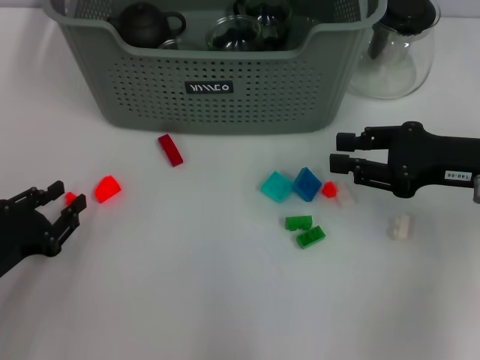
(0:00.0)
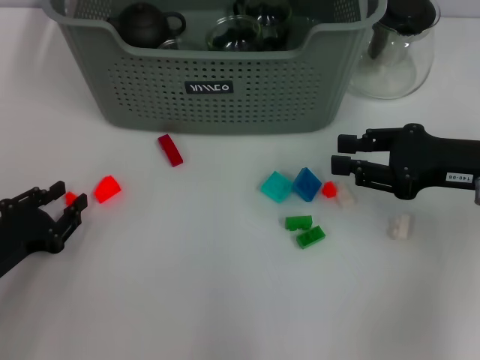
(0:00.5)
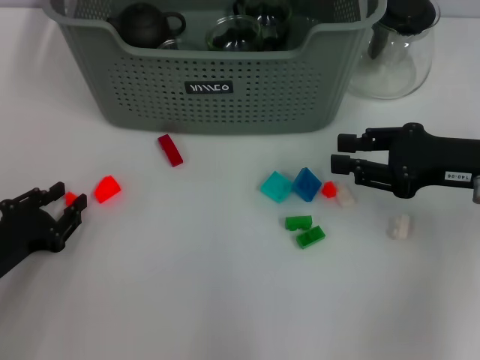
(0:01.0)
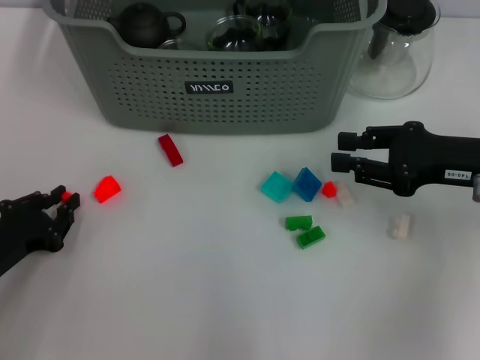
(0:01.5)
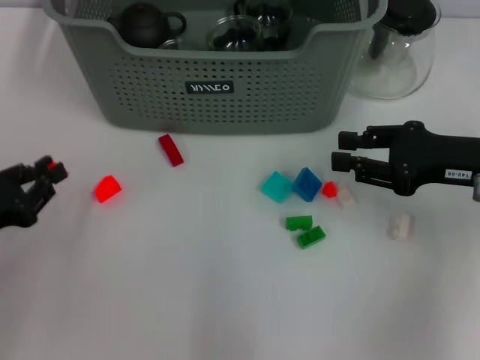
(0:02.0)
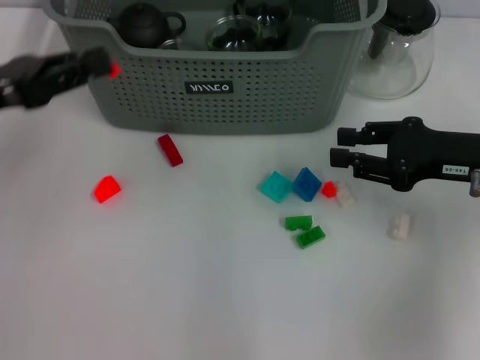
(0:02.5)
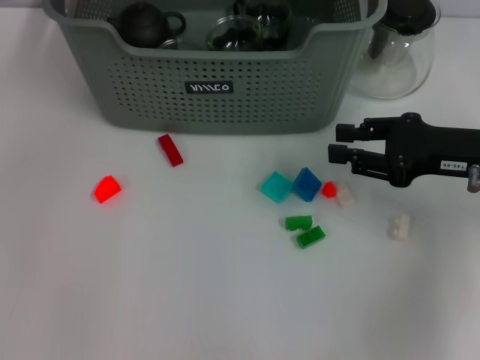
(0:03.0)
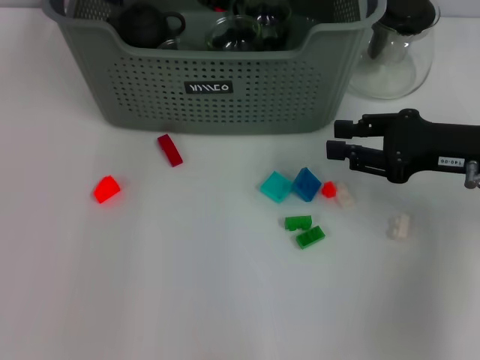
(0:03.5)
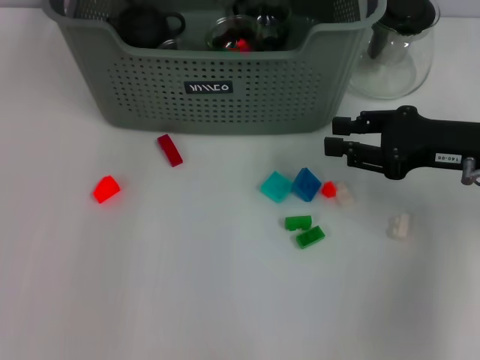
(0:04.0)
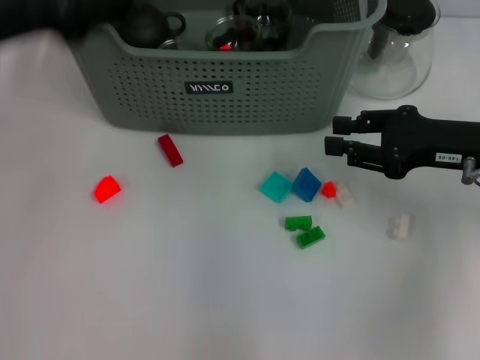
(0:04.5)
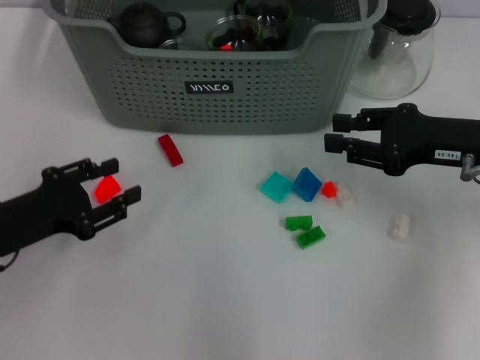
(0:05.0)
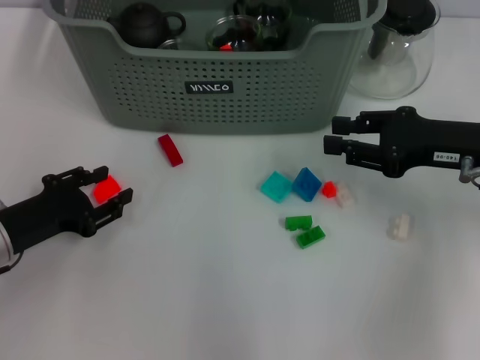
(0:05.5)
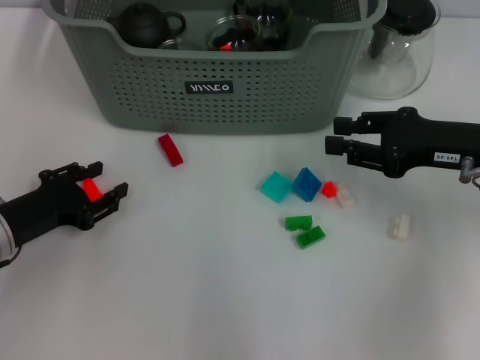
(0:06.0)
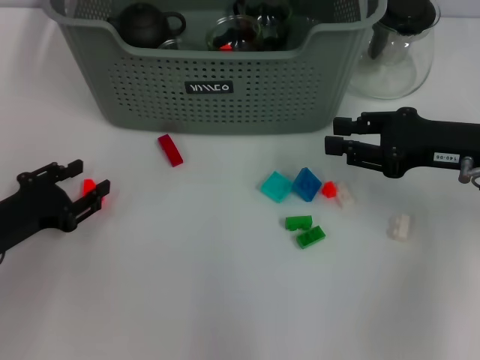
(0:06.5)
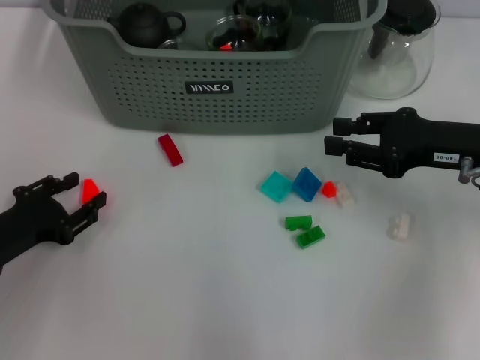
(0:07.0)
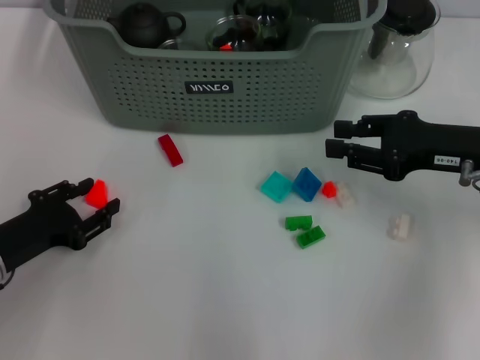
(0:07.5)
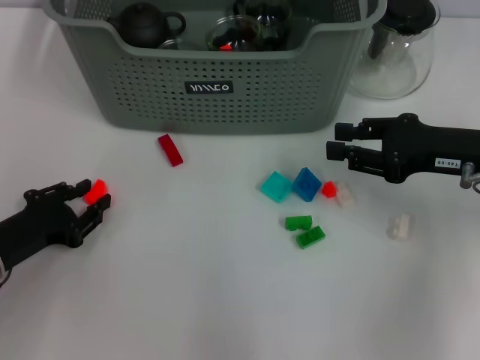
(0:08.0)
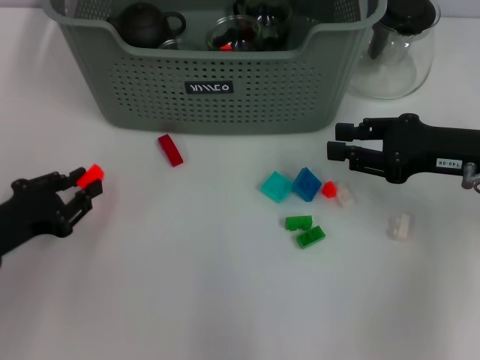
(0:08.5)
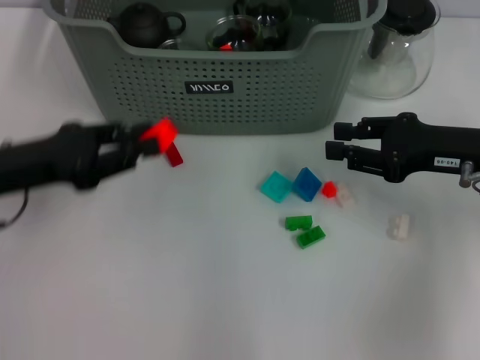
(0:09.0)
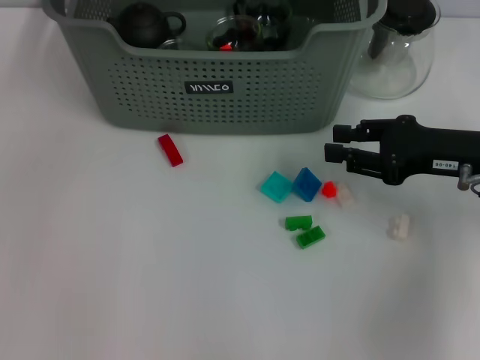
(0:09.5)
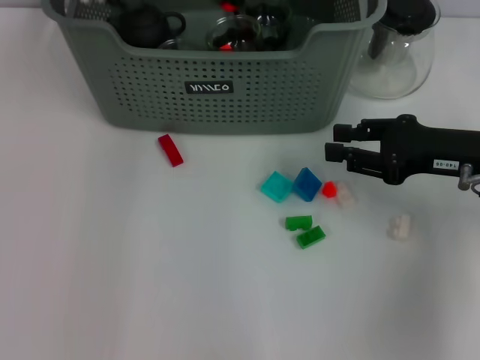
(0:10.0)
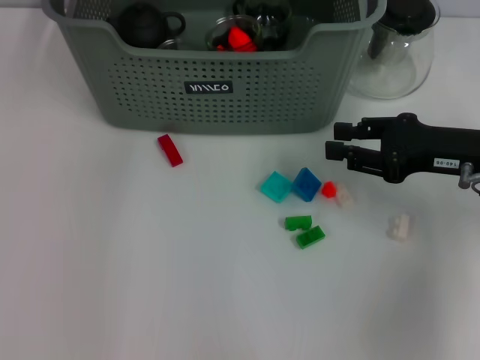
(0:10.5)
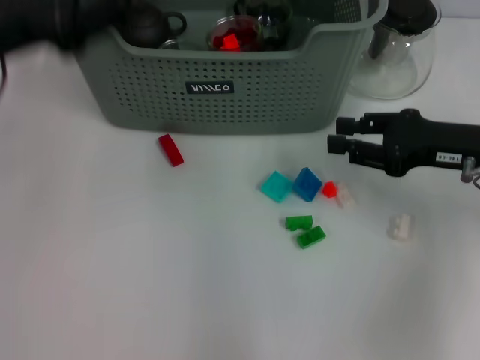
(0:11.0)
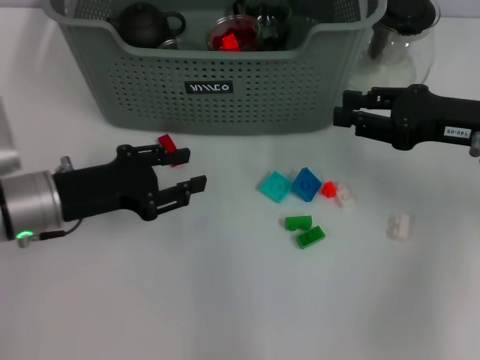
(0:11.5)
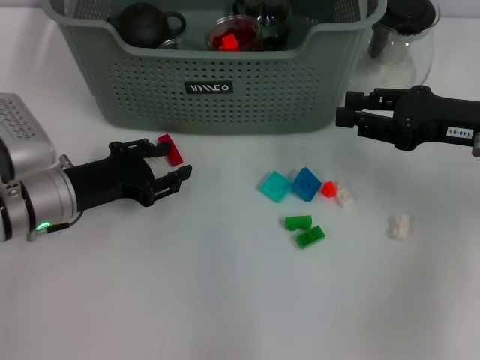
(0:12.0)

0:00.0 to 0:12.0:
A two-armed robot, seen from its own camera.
Task of the whole recording: pick up the teacup on the table and place it into the storage bin, pick up the block on the table and place it into the storage bin.
Step, 0:02.0 to 0:03.5: Place the orange block in the storage box with left gripper.
Step, 0:04.0 to 0:08.0: Grasp the orange block with left gripper.
Step, 0:08.5 to 0:10.0: Place the orange block in the storage box with left gripper.
0:00.0 to 0:02.0: The grippers move only a little.
0:02.0 to 0:04.0: The left gripper shifts roughly 40 cm forward, to the right and upward, and opens its fingers.
0:04.0 to 0:06.0: The left gripper moves downward, backward and to the left, about 35 cm.
0:06.0 to 0:08.0: There are only small adjustments of the grippers.
0:08.0 to 0:10.0: The left gripper goes roughly 35 cm forward, upward and to the right.
0:10.0 to 0:12.0: The left gripper moves downward, backward and to the left, approximately 25 cm.

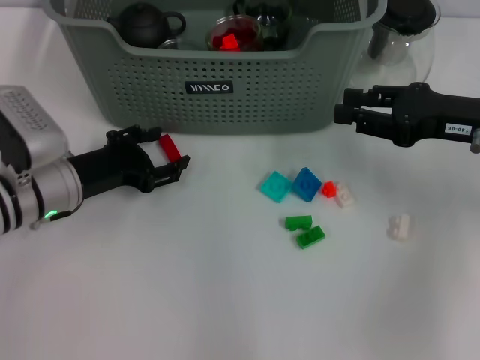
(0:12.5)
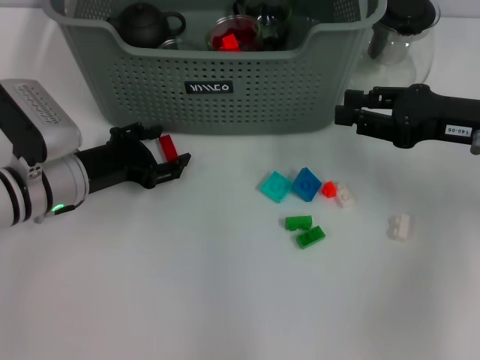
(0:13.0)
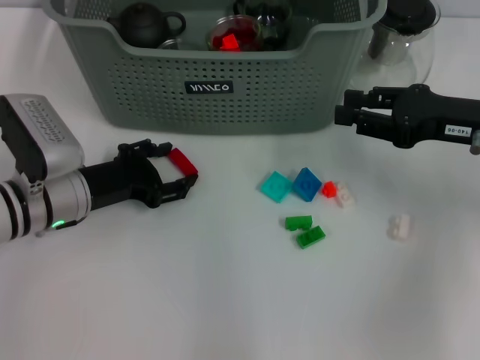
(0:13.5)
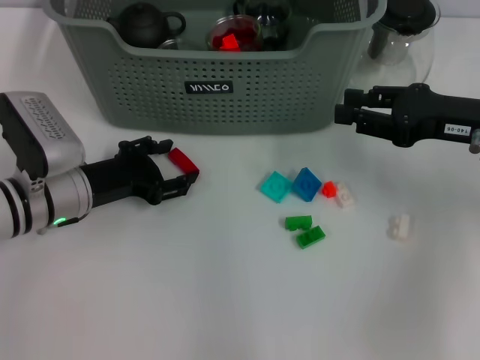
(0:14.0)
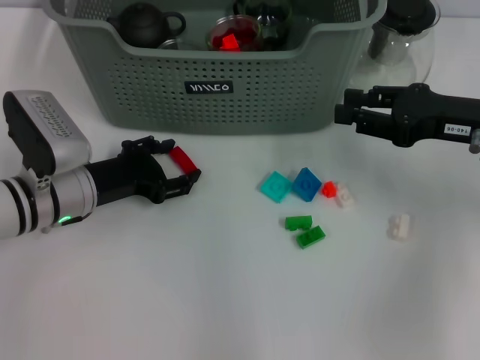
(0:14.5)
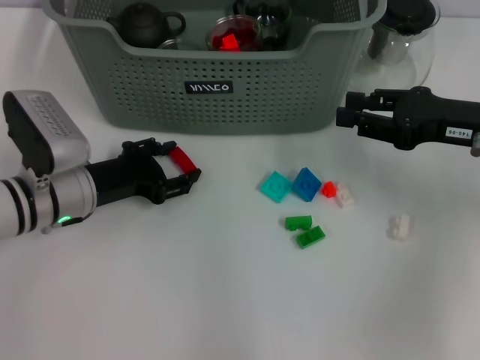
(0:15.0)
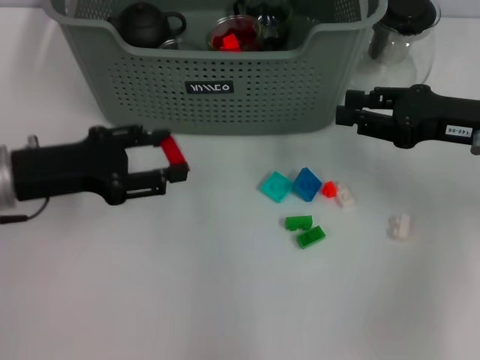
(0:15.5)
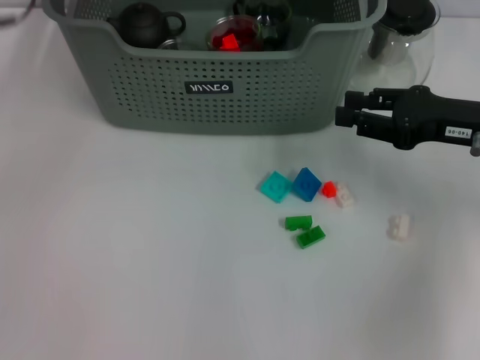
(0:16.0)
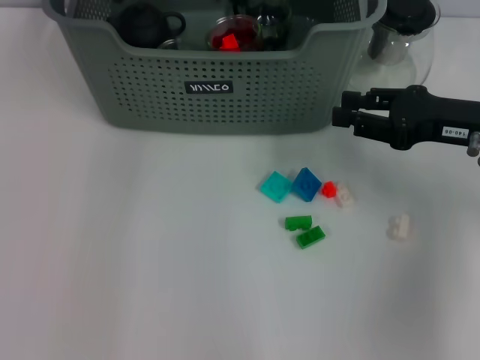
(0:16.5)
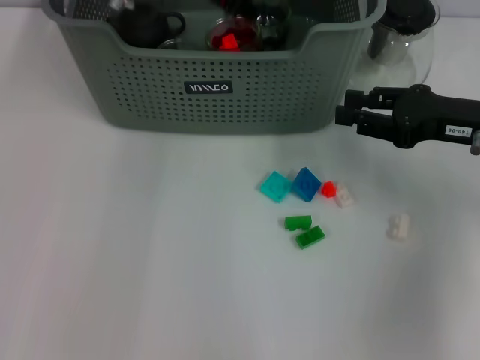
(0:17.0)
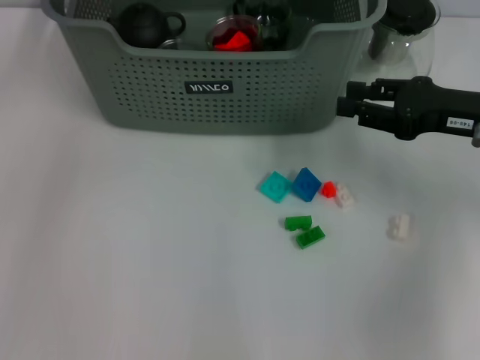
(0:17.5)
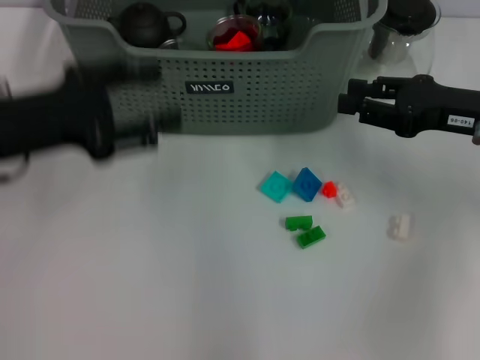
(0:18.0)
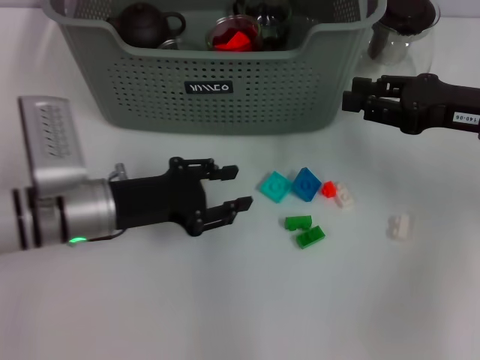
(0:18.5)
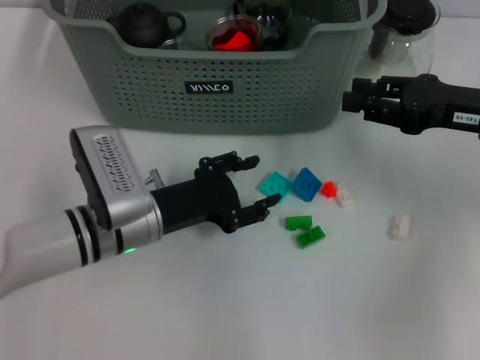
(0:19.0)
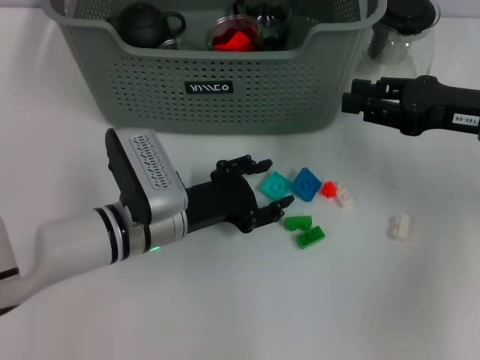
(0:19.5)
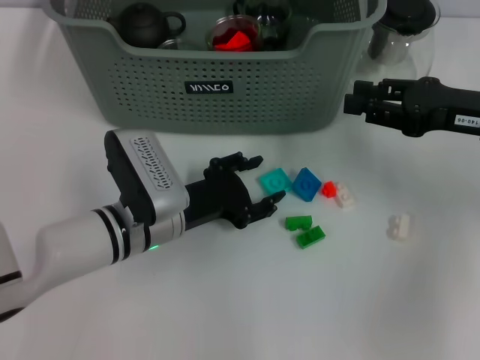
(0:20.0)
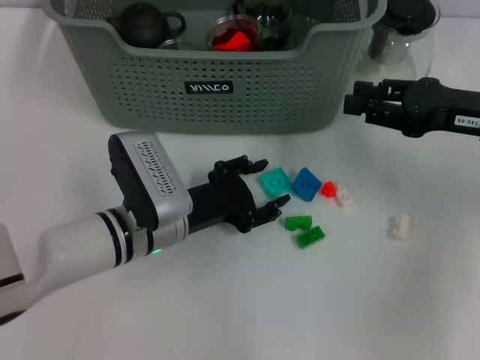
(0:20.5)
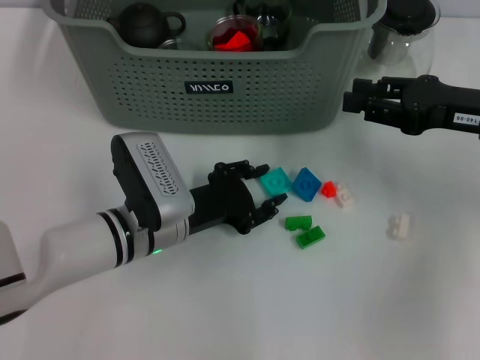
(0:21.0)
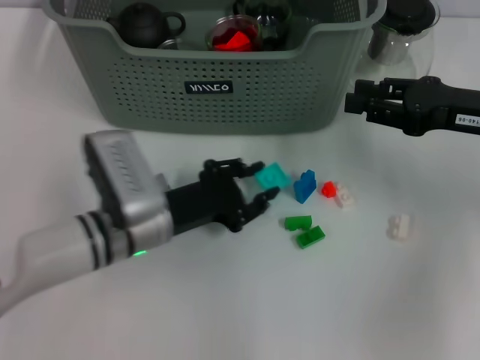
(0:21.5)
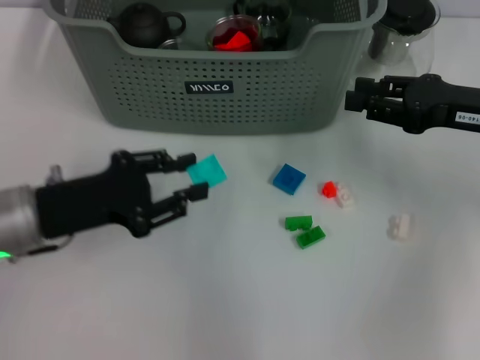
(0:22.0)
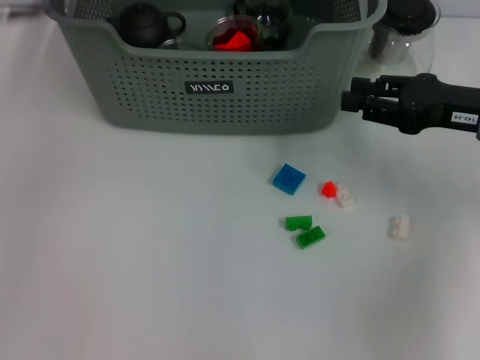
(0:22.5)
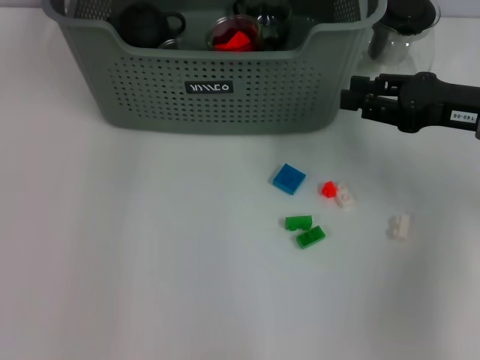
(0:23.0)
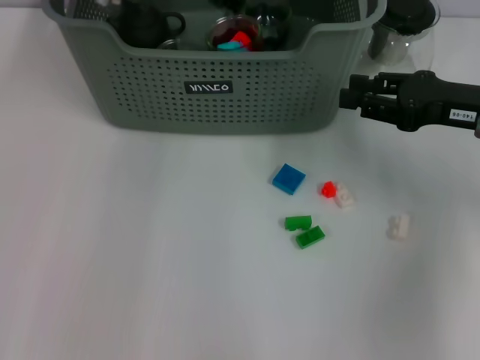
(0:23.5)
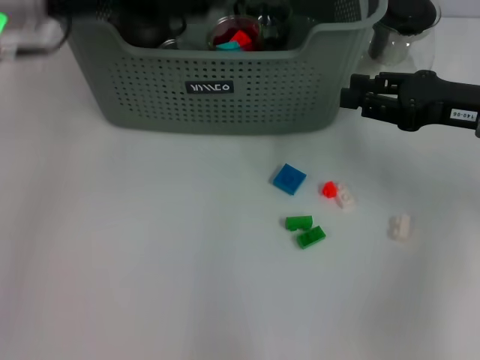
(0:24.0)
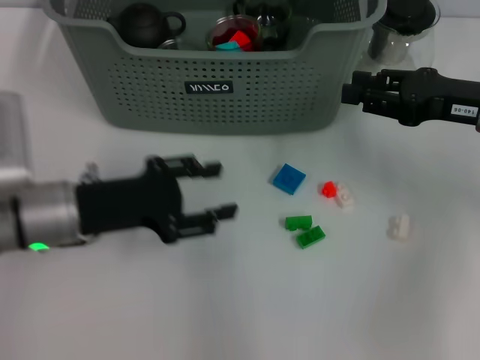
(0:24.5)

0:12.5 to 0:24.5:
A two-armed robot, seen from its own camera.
Task of the whole recording: pick up the teacup on the table and place it into the storage bin, pick up the block on the table and place it into the storage bin.
Step, 0:12.5 to 0:14.5: Grasp the red block with left gripper.
Step, 0:15.0 to 0:17.0: Place the red block in the storage box with left gripper.
Step, 0:17.5 to 0:21.0: Grasp the light blue block with left gripper.
Step, 0:21.5 to 0:23.0: Place the light blue block in the storage box with left gripper.
0:12.5 to 0:14.5: The two grippers keep their place.
0:14.5 to 0:16.5: The left gripper goes roughly 25 cm upward, forward and to the right.
0:16.5 to 0:18.5: The left gripper is displaced downward and backward by approximately 25 cm.
0:18.5 to 0:20.5: The left gripper travels to the right by some 5 cm.
0:20.5 to 0:22.5: The left gripper shifts some 30 cm upward, to the left and forward.
0:22.5 to 0:24.5: The left gripper heads downward and backward, covering approximately 20 cm.

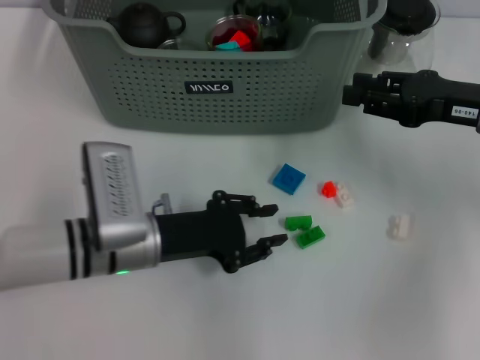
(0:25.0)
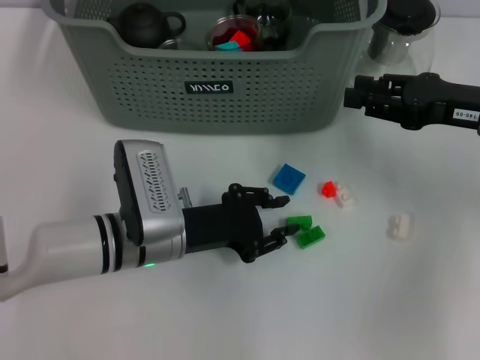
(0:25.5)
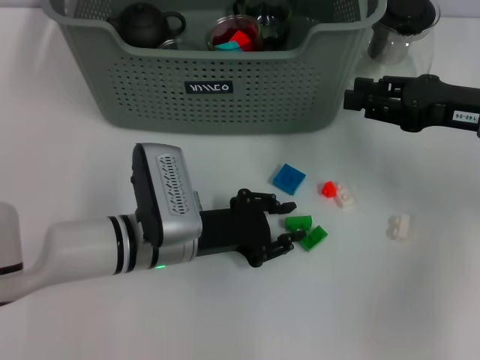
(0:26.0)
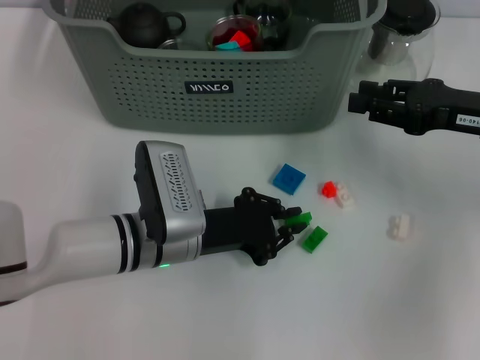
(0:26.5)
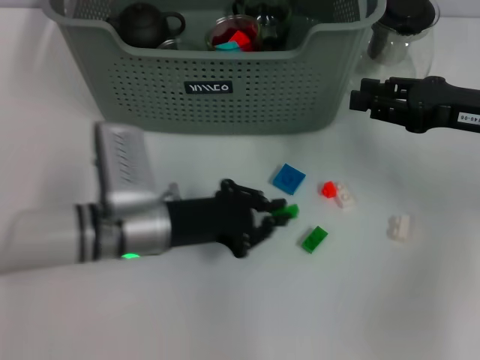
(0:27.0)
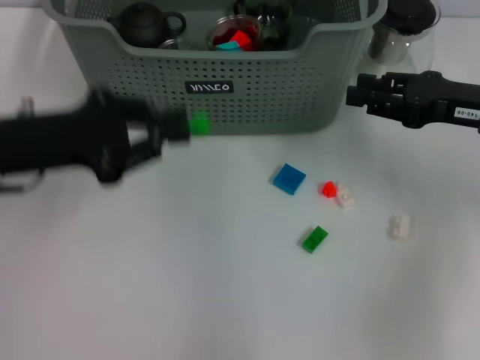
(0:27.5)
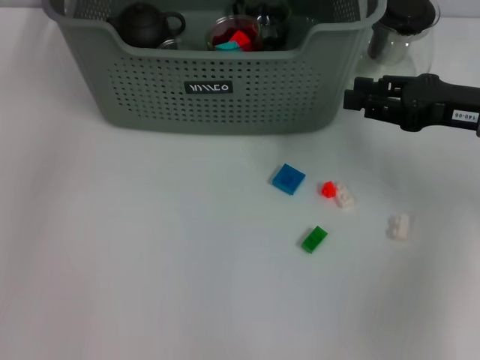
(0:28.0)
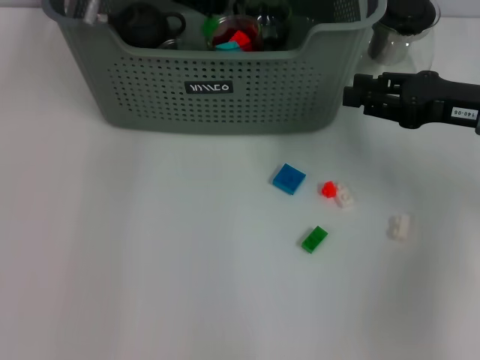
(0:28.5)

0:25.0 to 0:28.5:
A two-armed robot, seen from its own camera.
Task of the whole recording: pick up the teacup on the table and place it into the storage bin, pick up the block on the table and place it into the storage bin.
Step, 0:25.0 to 0:26.5: Grasp the green block with left gripper.
0:25.0 to 0:27.0: The left gripper closes.
0:27.0 to 0:28.5: The left gripper heads forward and upward, covering some 25 cm.
